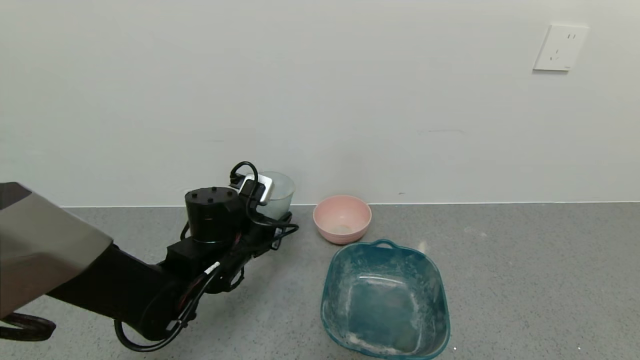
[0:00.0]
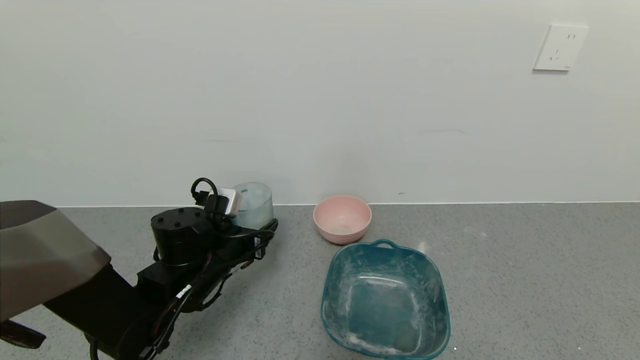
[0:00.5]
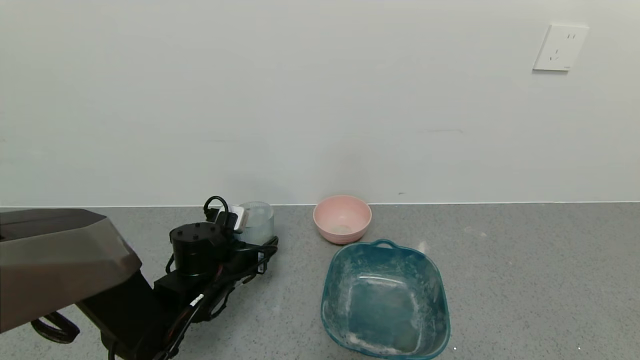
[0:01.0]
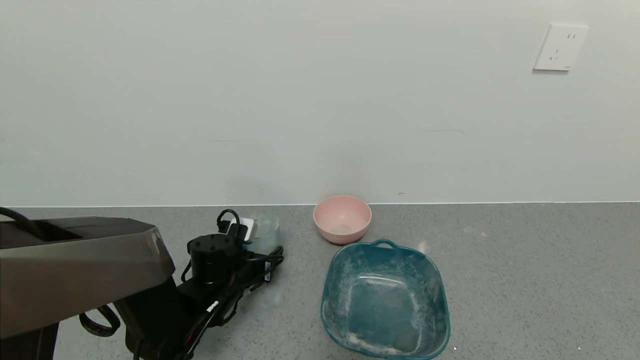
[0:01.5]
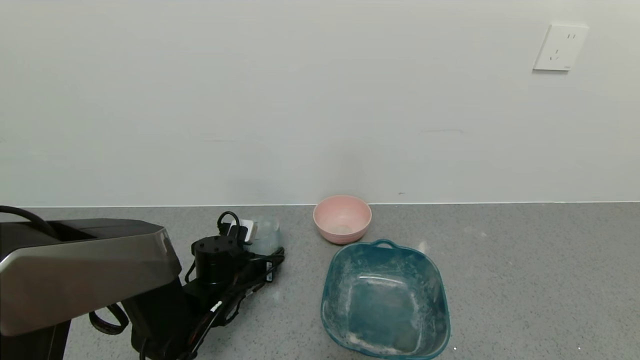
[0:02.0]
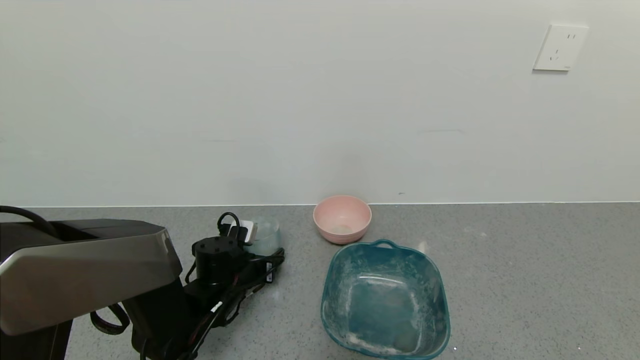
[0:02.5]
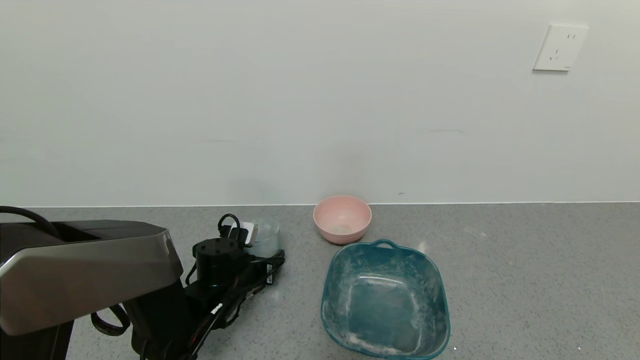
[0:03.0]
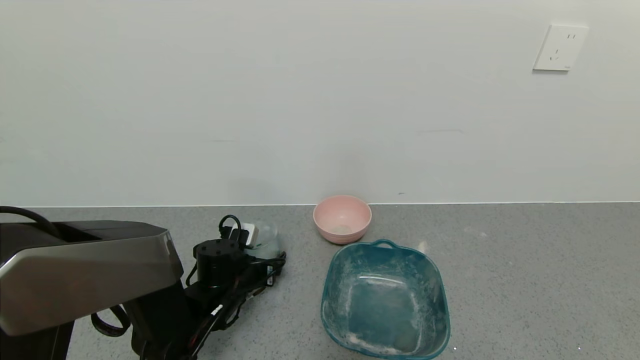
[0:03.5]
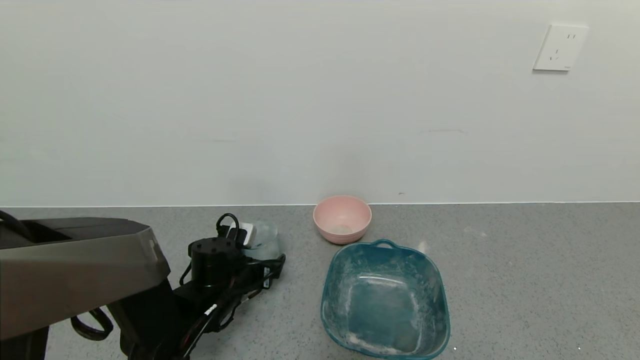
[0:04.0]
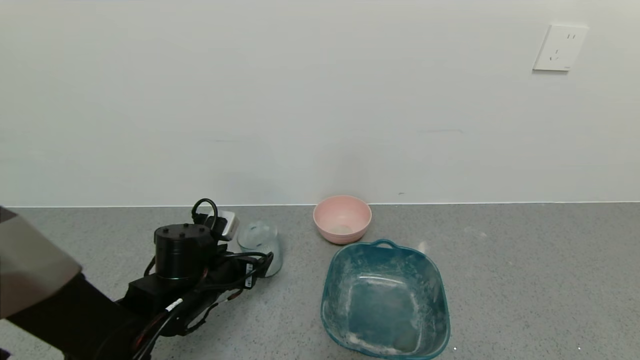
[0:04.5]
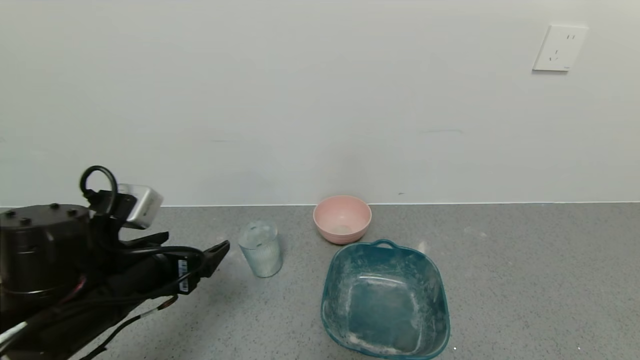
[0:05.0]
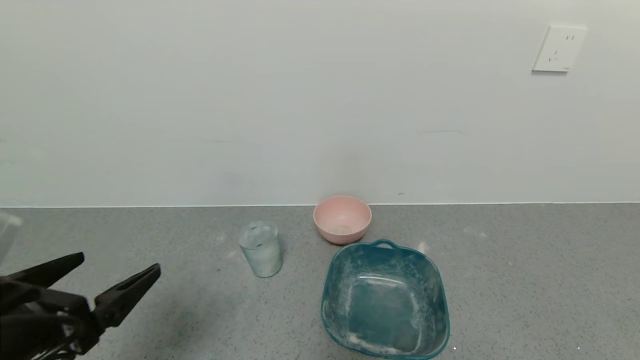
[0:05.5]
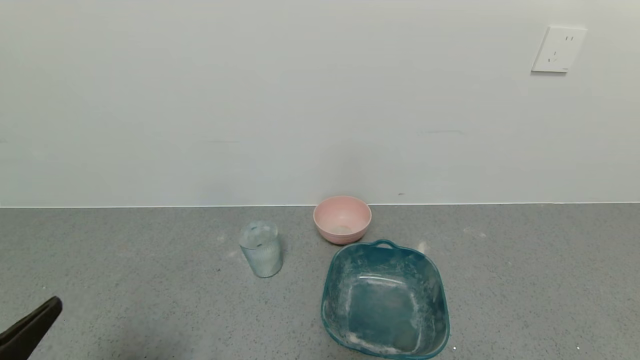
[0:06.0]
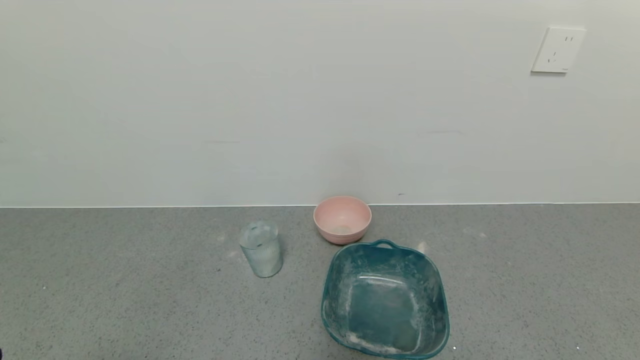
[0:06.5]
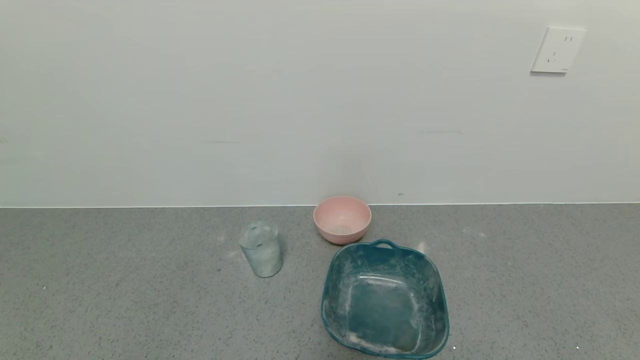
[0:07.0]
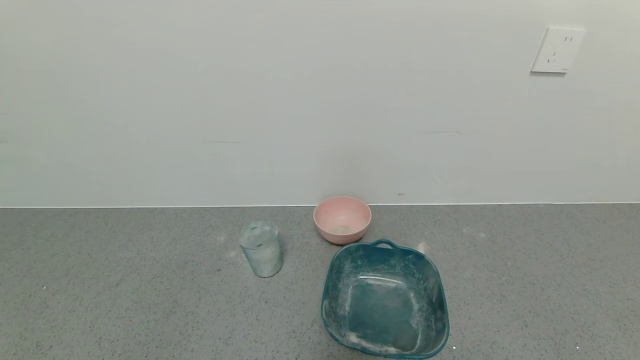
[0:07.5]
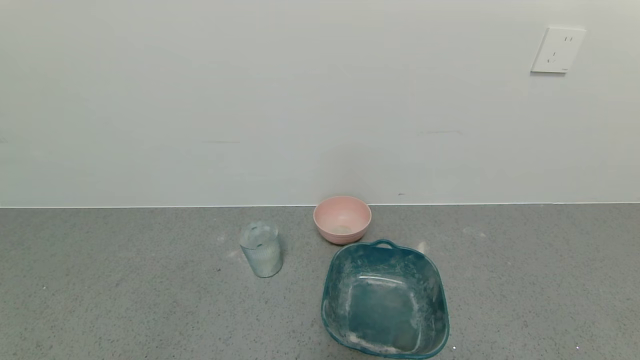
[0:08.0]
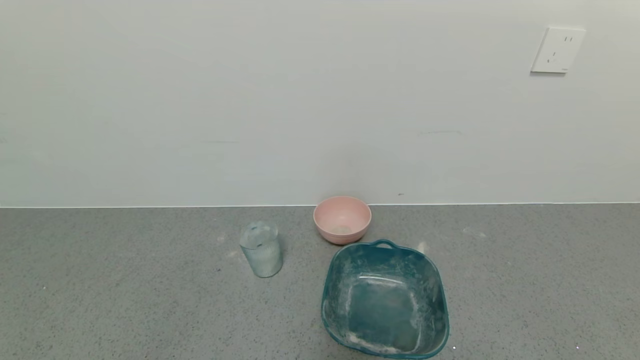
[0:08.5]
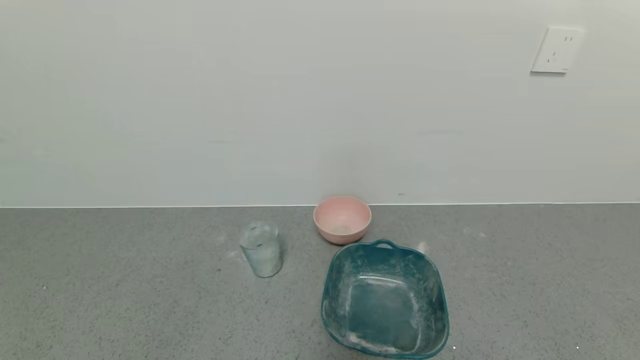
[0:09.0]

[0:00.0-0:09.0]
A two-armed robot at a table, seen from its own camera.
Task of the whole recording: use a gripper to pick up the cup and pour the powder into a bowl or tray.
Step, 0:00.0 to 0:04.5: Place the glass cup down with the left gripper.
0:00.0 to 0:02.0: The left gripper is displaced downward by some 10 cm.
0:02.0 to 0:04.5: The left gripper goes approximately 5 cm upward, and opens up.
0:04.5 to 0:07.0: The left gripper goes roughly 30 cm backward.
